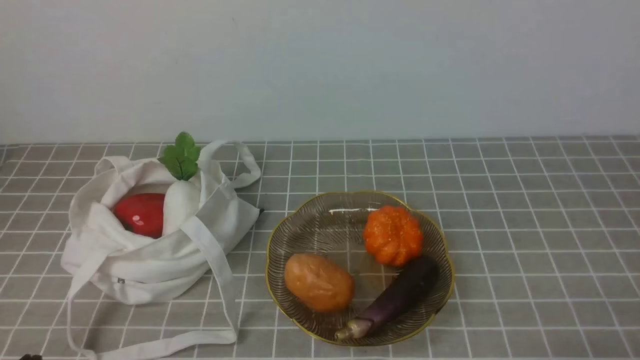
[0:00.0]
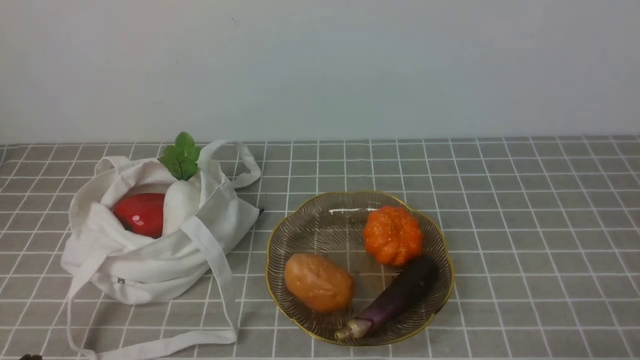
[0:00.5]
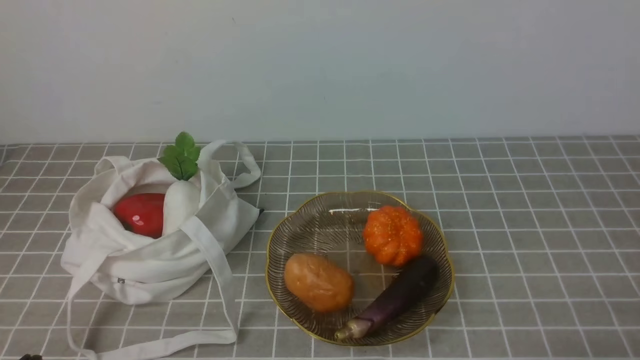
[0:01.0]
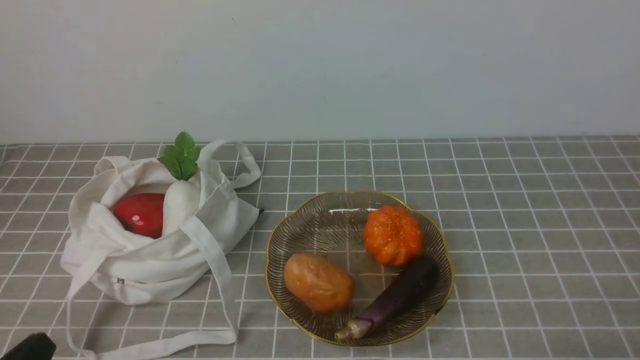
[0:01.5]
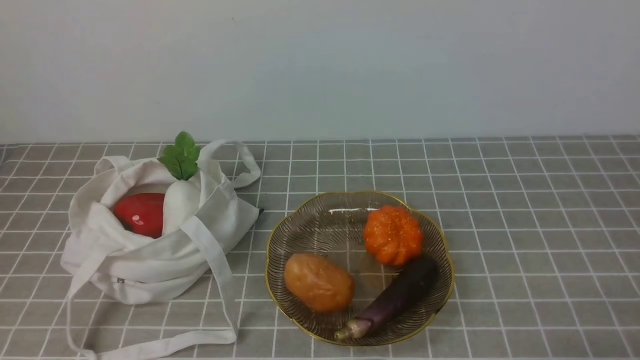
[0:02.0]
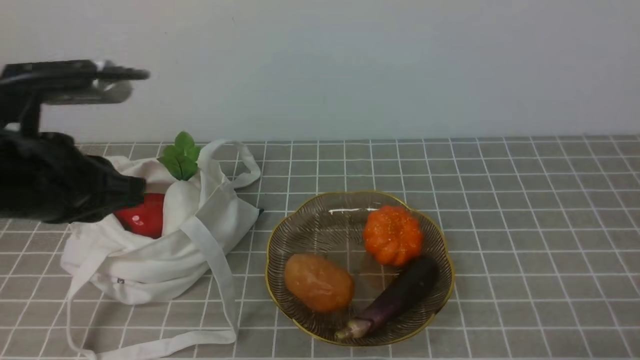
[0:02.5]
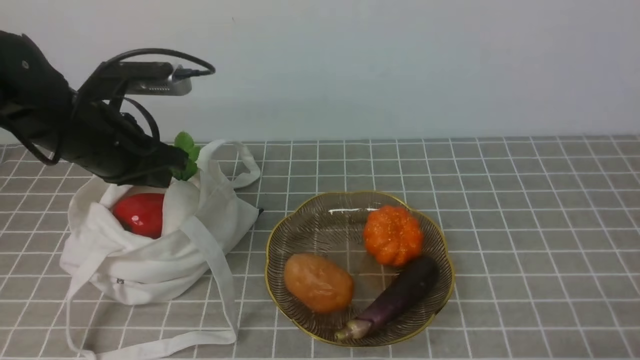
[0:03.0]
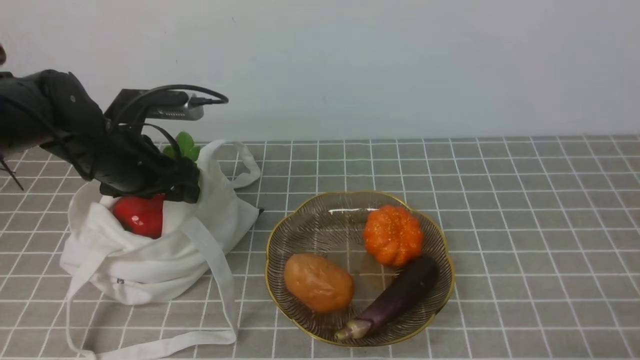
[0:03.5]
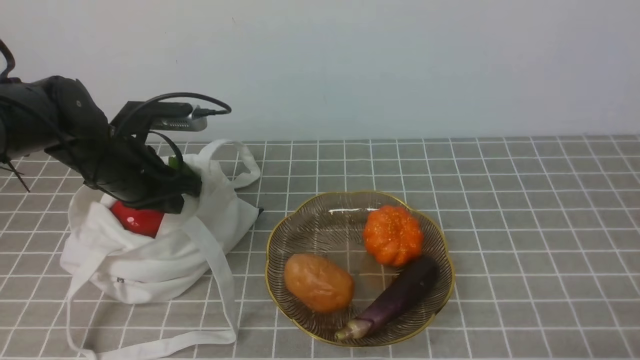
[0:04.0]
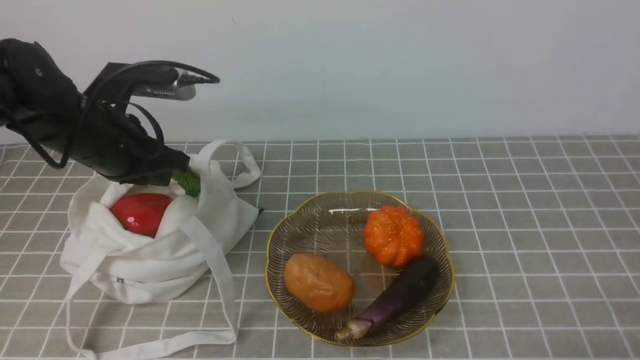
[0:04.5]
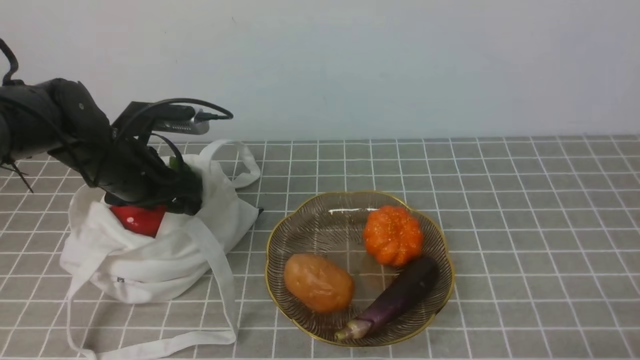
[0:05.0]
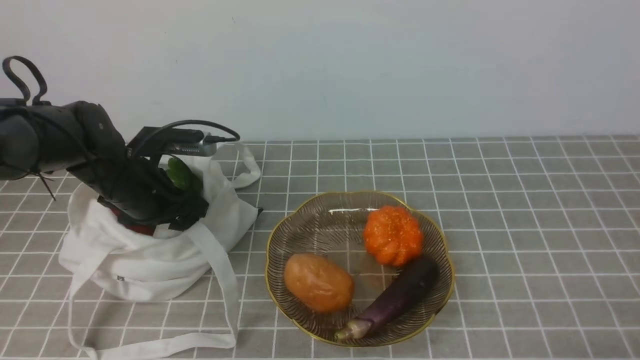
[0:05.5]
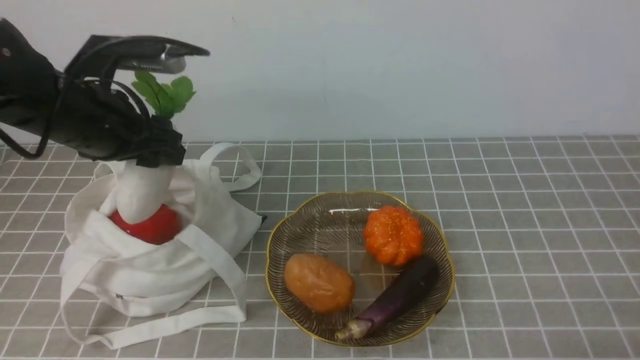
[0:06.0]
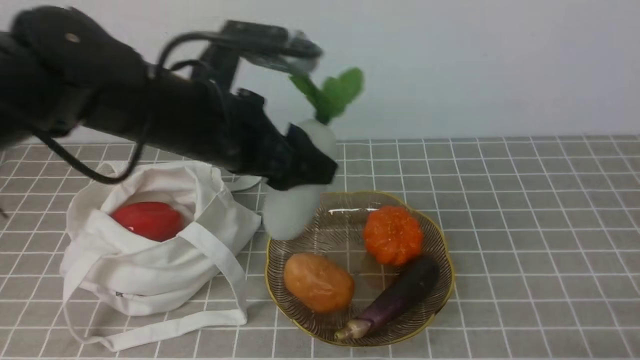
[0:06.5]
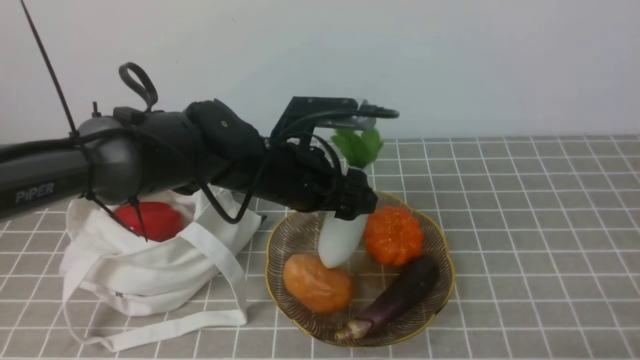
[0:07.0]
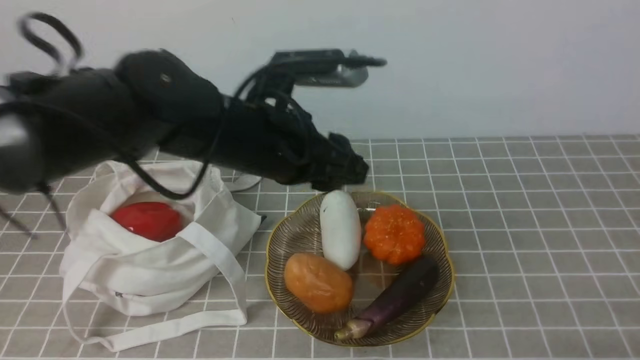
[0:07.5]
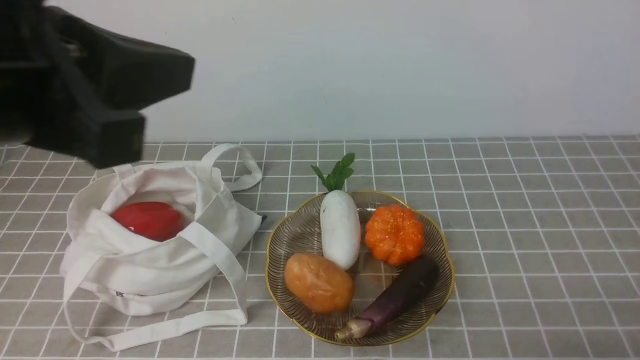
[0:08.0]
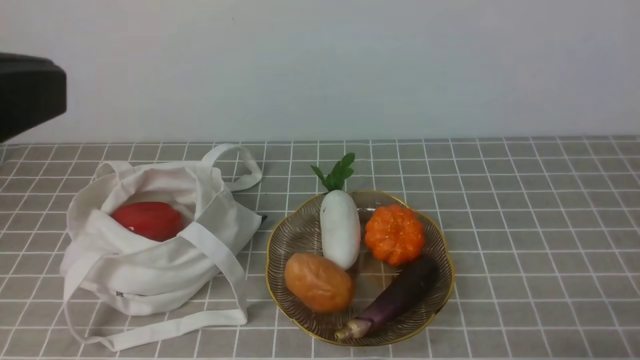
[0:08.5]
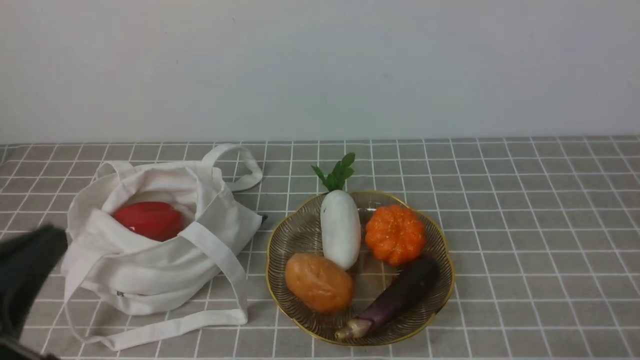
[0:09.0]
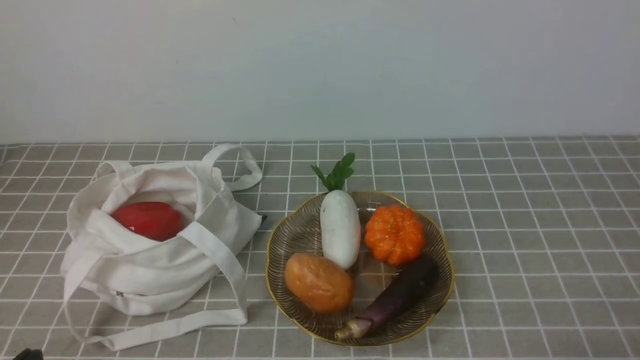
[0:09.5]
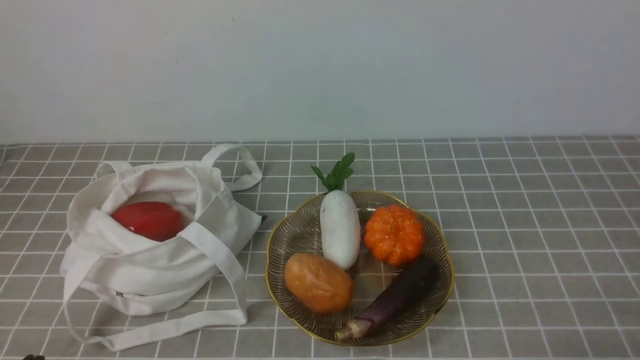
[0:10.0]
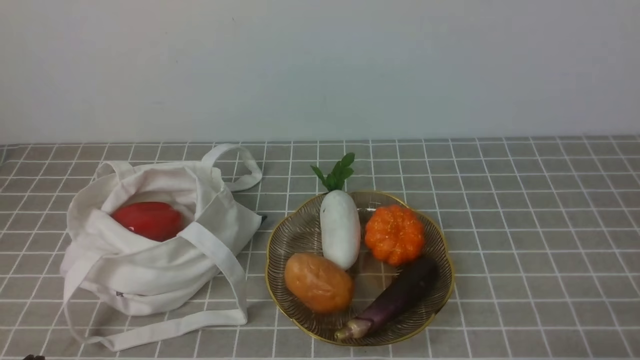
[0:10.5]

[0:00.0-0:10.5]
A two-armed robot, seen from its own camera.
Task of the whole recording: take vegetables from bag on grey coffee tablecloth place on plate.
Step, 0:00.0 to 0:05.5: Grasp the radish with left gripper.
Step, 0:06.0 to 0:07.5: Place the radish on the plate with left gripper.
0:02.0 to 0:04.0: The left gripper goes some 30 cm forward, and opens.
0:04.0 to 0:06.5: The left gripper moves up and down over about 15 cm, changing direction 2 times, and opens its fingers.
0:06.5 to 0:08.5: The left gripper moves backward and upward, approximately 25 cm, and closes its fingers.
0:08.5 to 0:10.5: The left gripper moves downward, roughly 30 cm.
